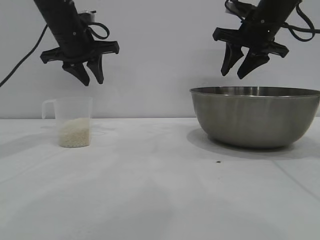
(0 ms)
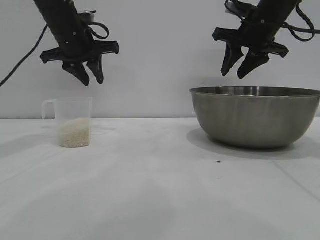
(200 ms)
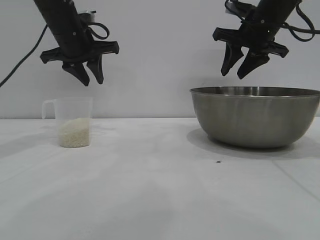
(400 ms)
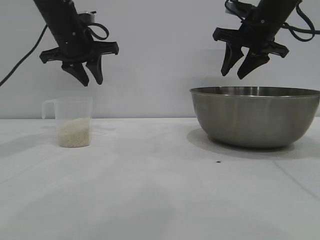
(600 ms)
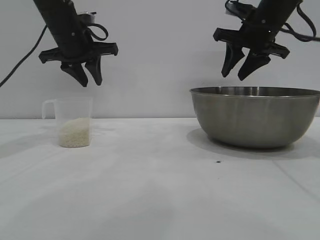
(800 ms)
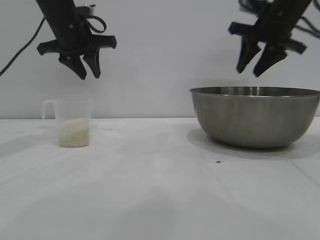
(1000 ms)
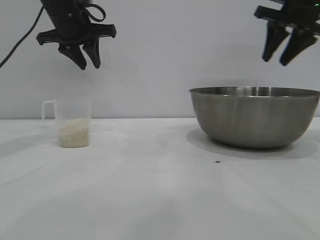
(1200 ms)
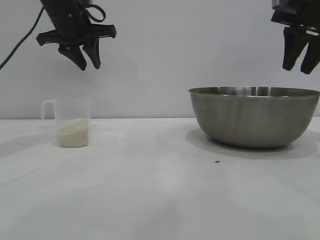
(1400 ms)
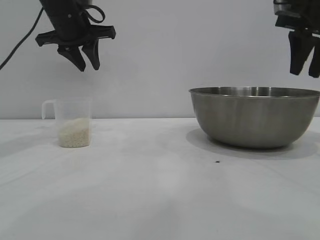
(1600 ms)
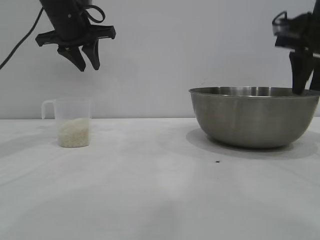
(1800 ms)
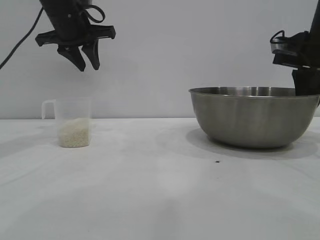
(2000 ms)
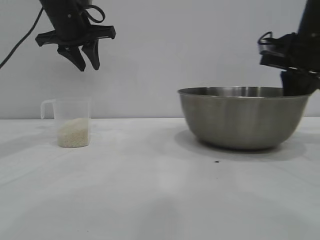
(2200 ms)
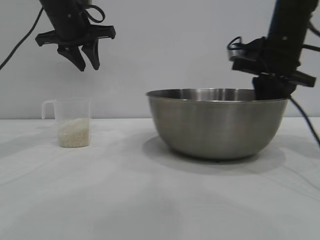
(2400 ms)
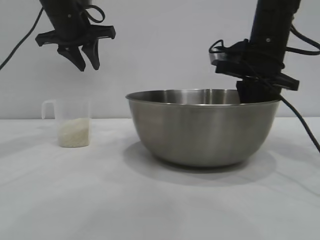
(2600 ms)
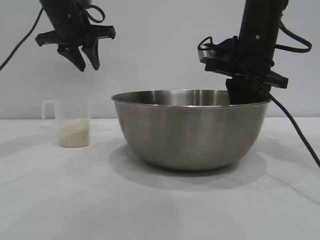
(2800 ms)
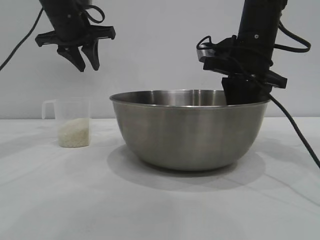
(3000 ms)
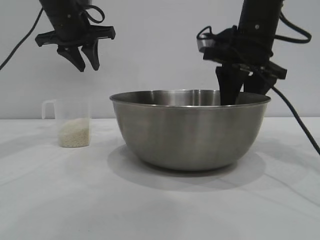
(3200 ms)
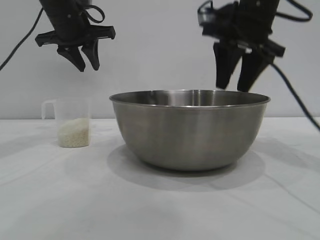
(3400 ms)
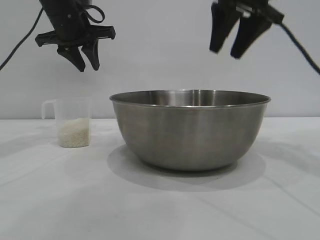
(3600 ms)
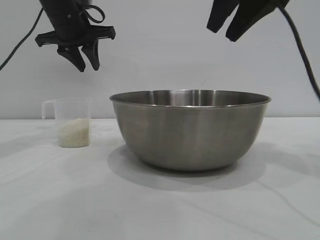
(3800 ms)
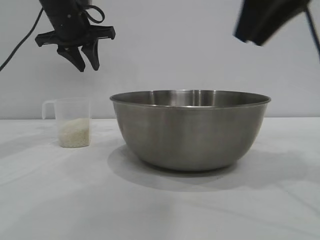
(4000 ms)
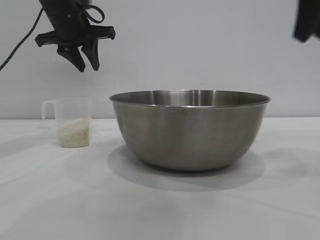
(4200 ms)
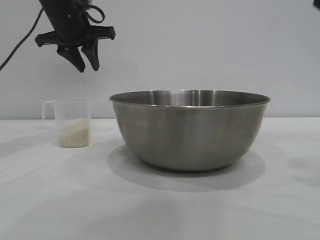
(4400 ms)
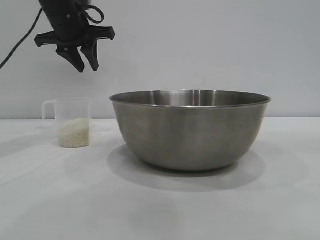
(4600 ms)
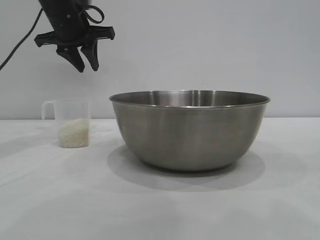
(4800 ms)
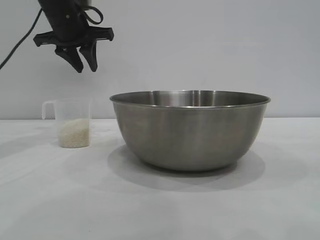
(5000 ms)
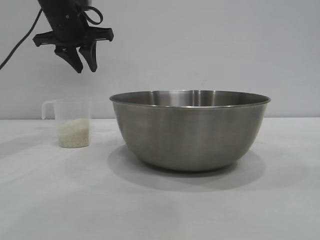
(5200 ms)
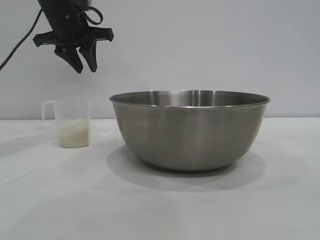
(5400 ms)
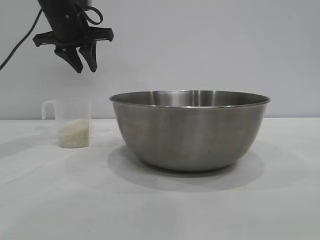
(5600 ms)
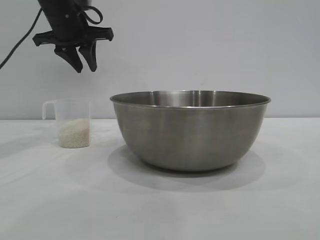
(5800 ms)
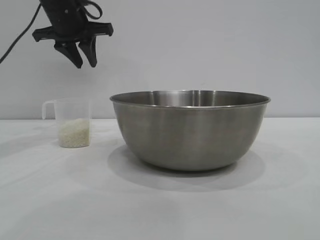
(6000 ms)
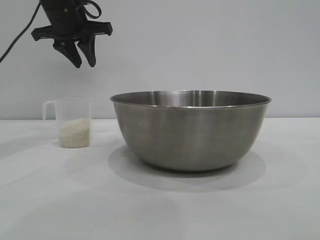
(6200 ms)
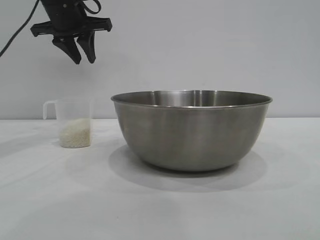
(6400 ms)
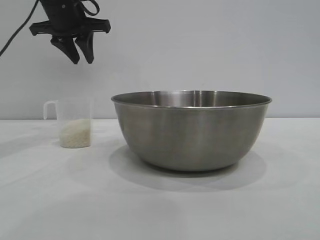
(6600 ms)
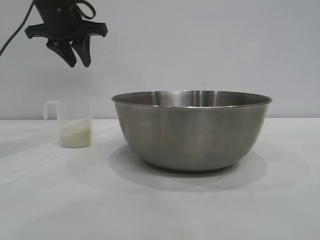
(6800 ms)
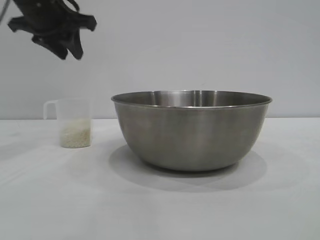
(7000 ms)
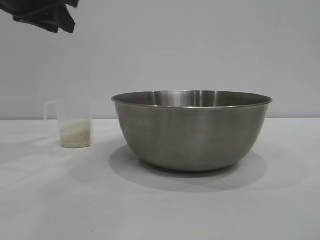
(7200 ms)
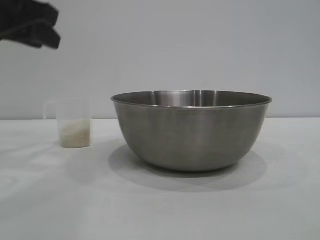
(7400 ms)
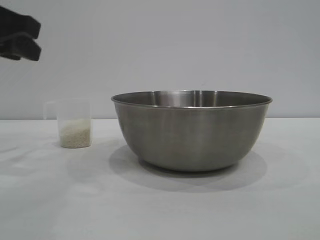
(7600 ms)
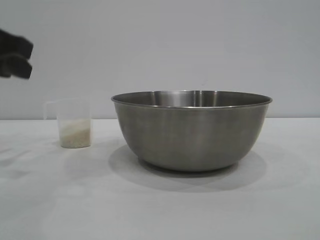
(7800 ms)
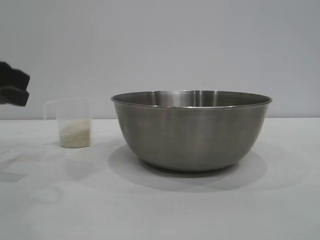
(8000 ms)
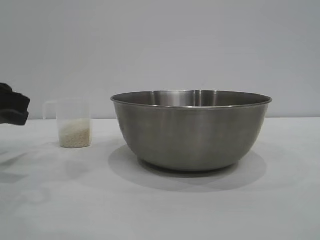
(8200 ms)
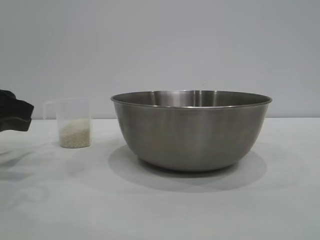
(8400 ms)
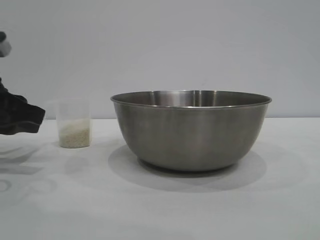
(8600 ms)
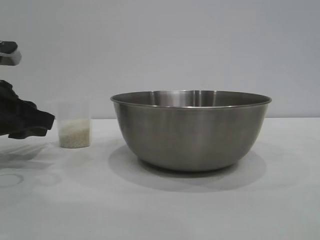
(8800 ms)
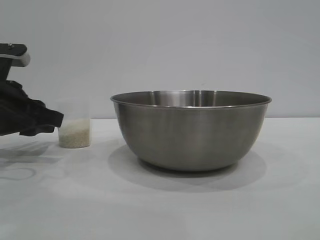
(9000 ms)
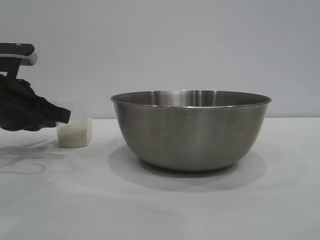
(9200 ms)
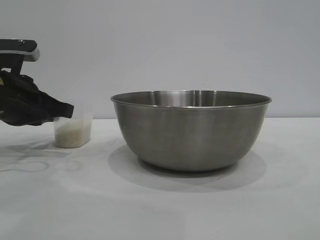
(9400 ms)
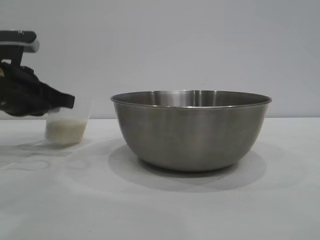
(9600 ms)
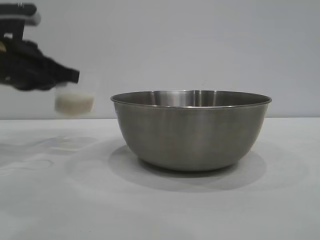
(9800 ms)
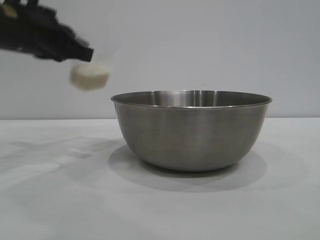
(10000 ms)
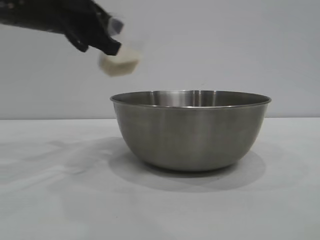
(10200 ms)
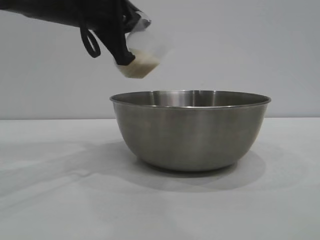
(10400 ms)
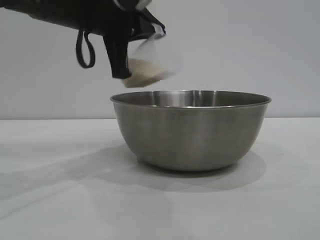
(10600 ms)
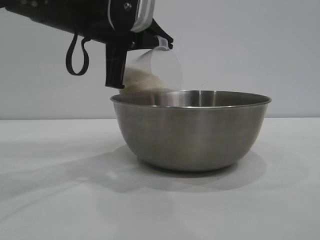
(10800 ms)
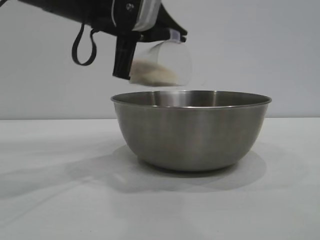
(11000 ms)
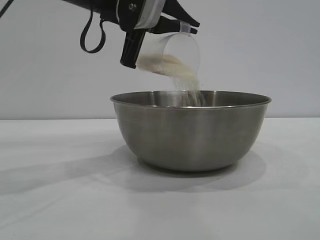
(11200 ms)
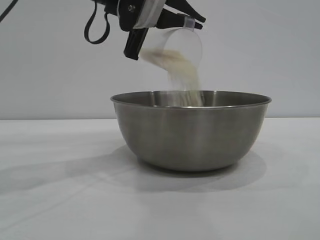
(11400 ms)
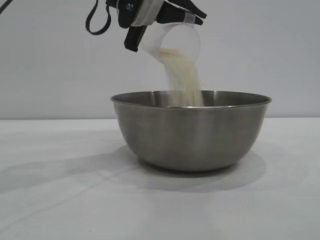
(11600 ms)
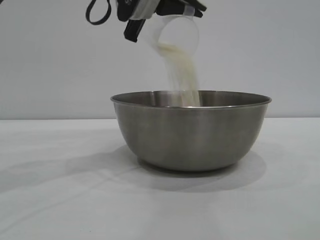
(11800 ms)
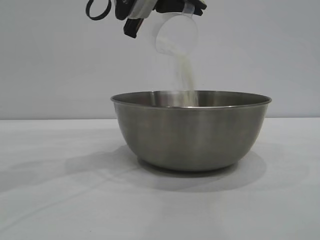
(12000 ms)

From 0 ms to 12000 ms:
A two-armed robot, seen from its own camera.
Task of the whole recording: the right gripper grasp the rice container and place it in the center of the table, the left gripper grasp the rice scoop and pour the rice into the rice container.
Step, from 0 ms to 3400 ms: Move the bowl to the center of view with the right gripper.
Step, from 3600 ms to 9800 ms: Pick up the cup with rice in it with the left gripper.

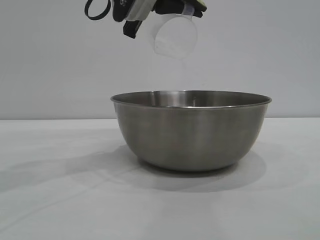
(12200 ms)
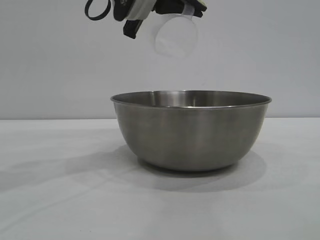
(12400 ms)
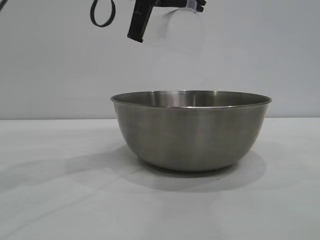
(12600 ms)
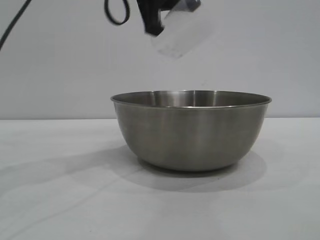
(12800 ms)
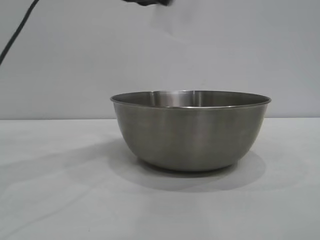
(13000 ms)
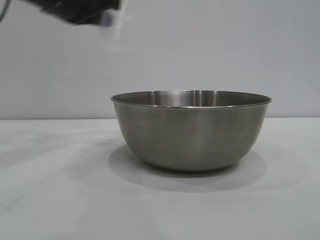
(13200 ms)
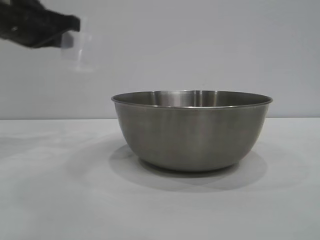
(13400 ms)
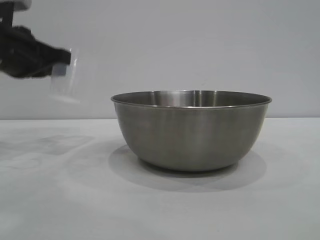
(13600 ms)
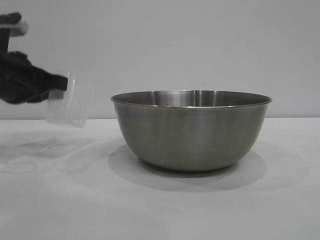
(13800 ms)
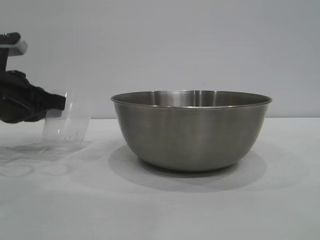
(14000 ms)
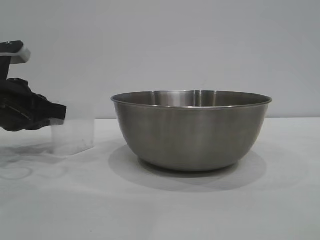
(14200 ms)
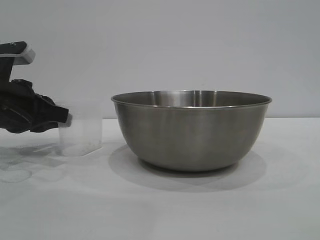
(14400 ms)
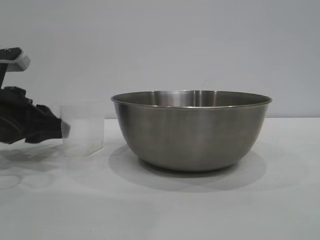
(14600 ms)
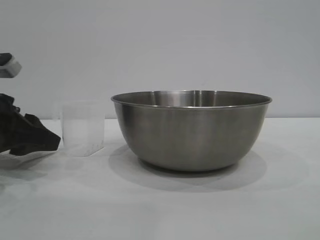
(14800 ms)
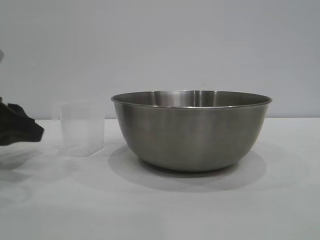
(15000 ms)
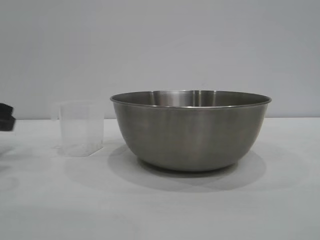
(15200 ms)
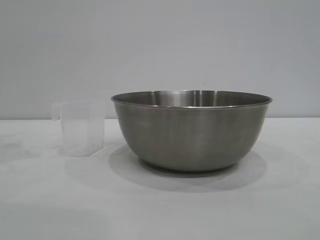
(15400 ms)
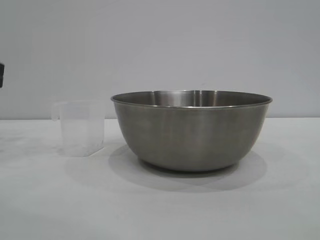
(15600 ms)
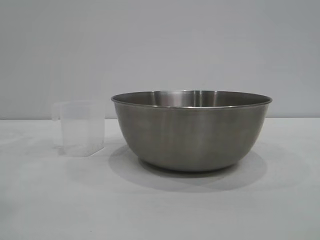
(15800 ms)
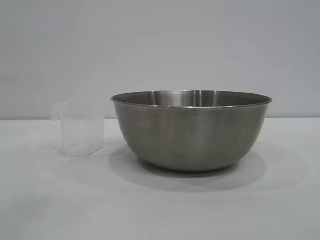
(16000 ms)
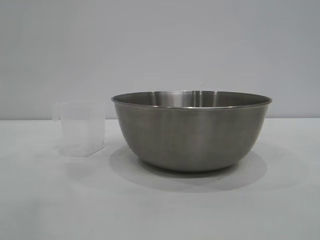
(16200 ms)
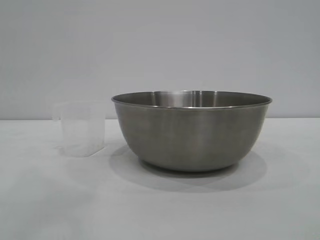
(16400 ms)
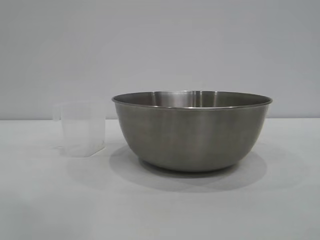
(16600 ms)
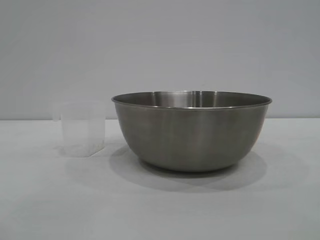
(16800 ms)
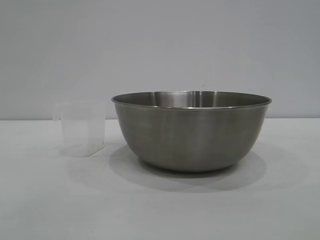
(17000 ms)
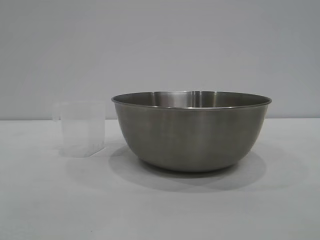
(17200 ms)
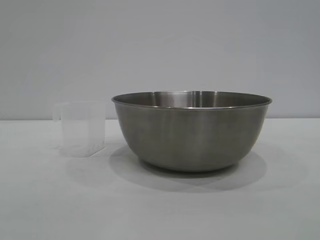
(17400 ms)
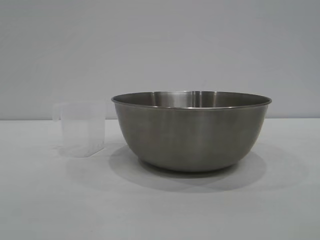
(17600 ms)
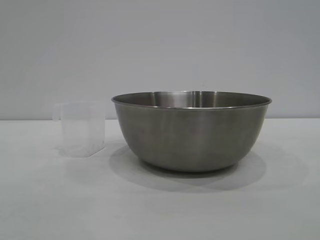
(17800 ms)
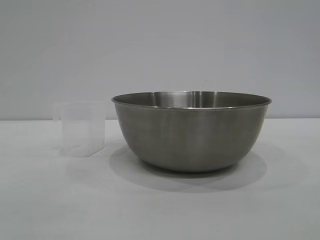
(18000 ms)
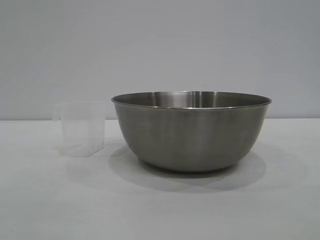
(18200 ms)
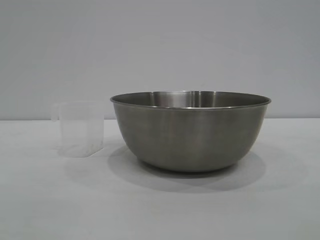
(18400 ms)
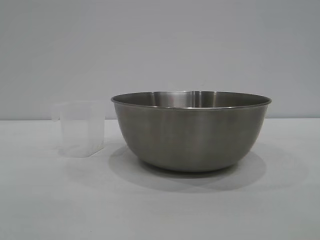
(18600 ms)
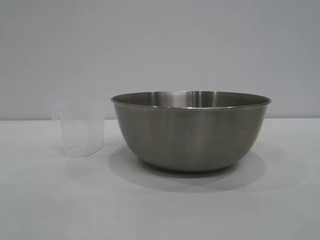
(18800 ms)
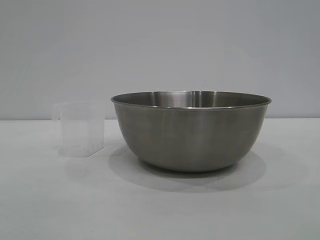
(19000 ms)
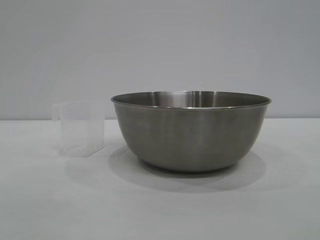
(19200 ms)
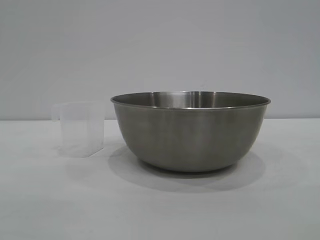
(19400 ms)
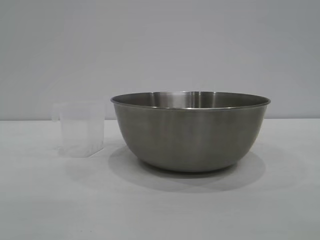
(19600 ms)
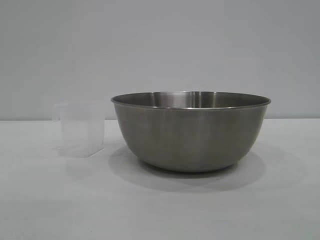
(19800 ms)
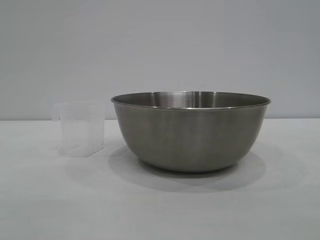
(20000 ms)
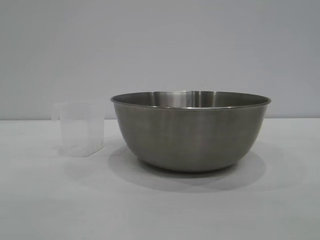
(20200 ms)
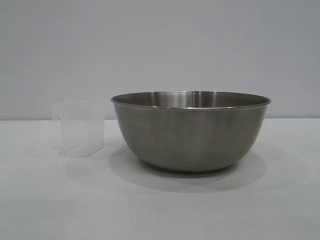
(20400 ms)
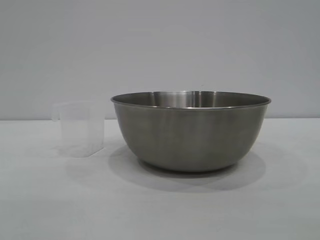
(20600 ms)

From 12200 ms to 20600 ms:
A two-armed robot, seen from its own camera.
Task of the whole recording: the right gripper grasp the rice container and place it in the center of the table, the left gripper grasp the rice scoop and pour the rice into the rice container.
Step, from 13000 ms to 15000 ms: Place the cup on the table with the left gripper.

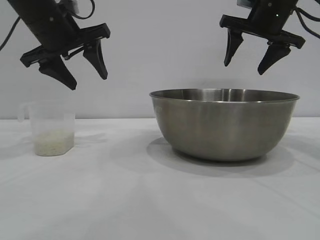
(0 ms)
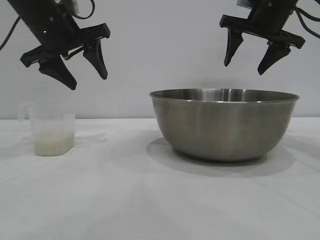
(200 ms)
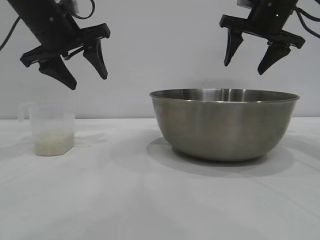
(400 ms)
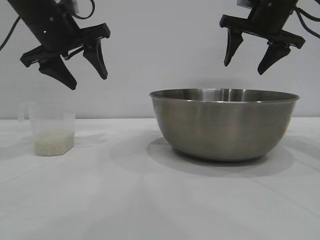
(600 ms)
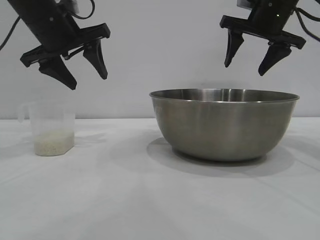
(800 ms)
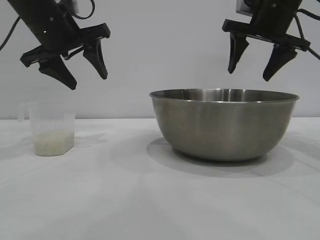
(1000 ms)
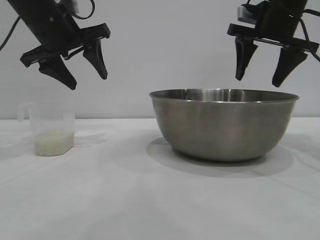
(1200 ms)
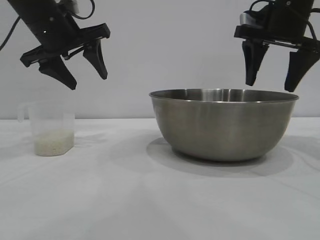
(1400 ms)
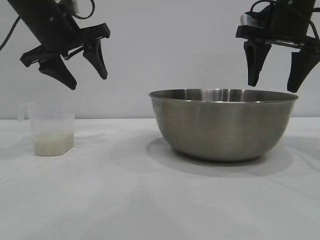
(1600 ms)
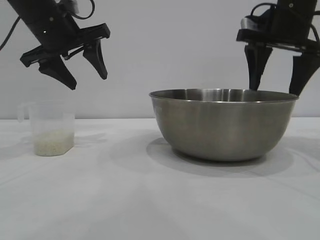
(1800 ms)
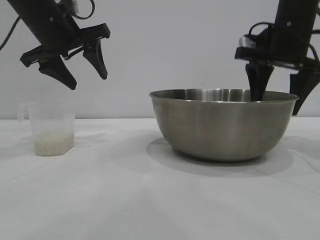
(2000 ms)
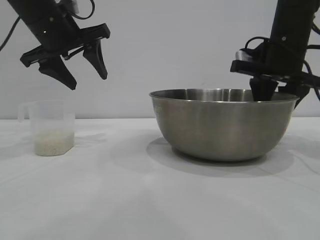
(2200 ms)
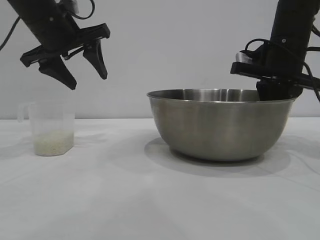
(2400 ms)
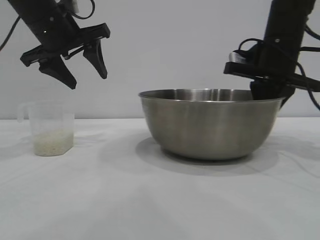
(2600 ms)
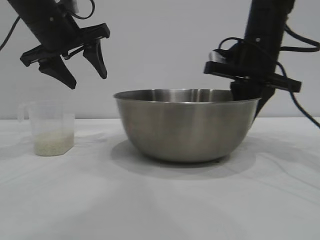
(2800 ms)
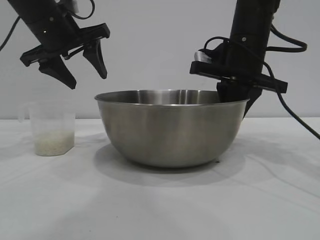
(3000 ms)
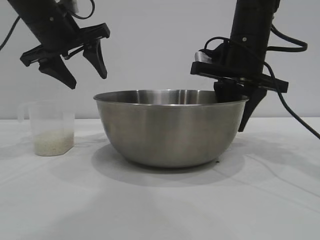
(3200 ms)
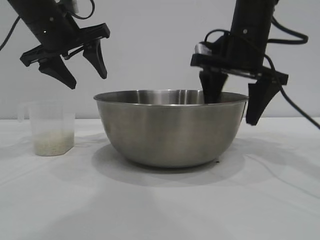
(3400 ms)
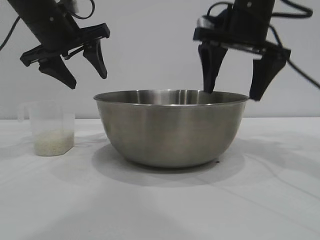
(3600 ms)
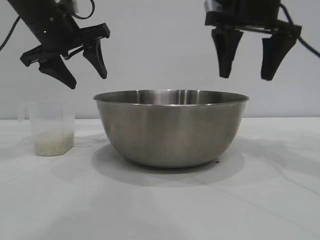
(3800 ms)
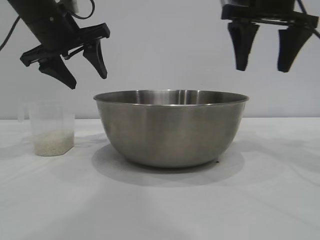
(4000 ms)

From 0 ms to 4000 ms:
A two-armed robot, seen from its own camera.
Task of the whole recording: the right gripper grasp the rice container and place it in the center of the table, the left gripper grasp the rice scoop and pour the rice into the rice container.
Step, from 0 ms to 3400 ms: Move the bowl to the center of view with the right gripper.
